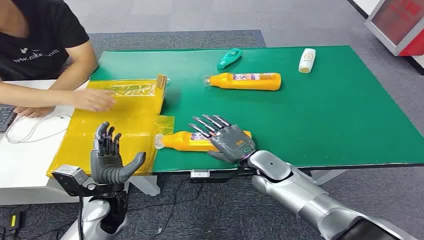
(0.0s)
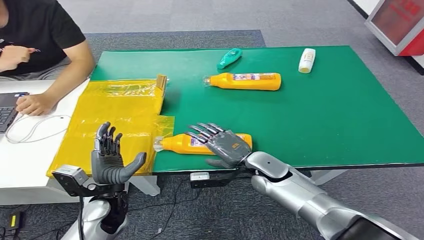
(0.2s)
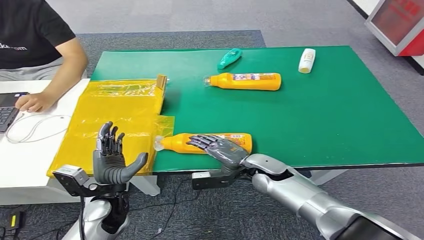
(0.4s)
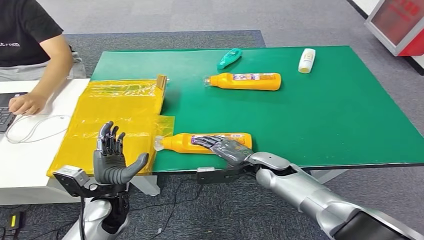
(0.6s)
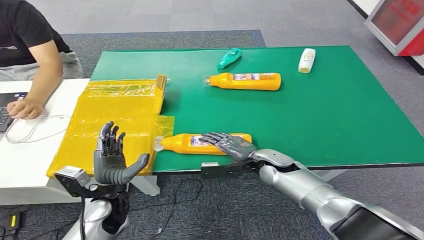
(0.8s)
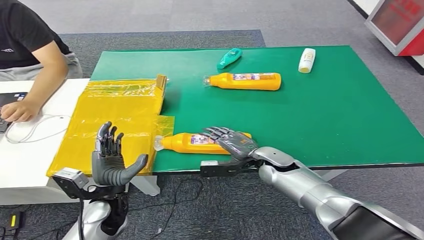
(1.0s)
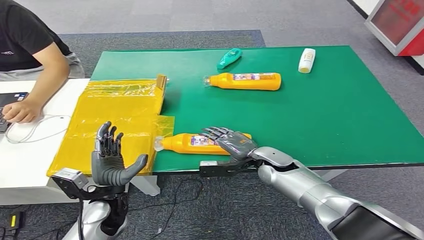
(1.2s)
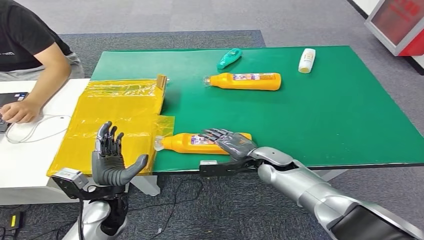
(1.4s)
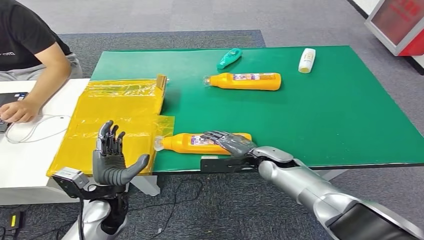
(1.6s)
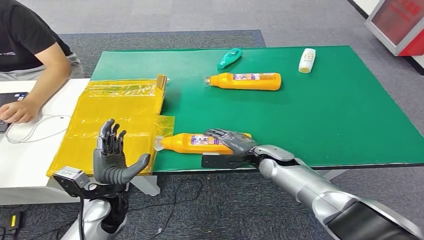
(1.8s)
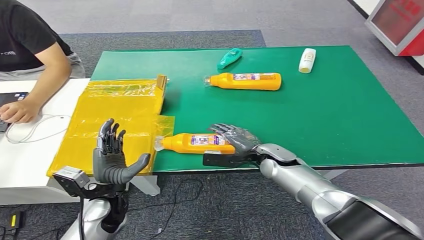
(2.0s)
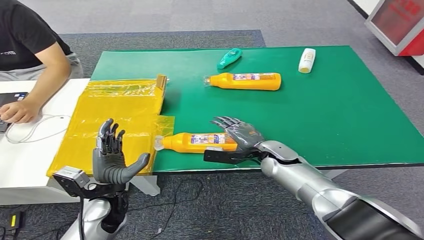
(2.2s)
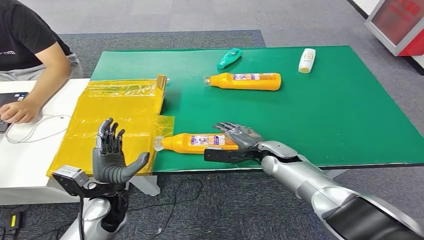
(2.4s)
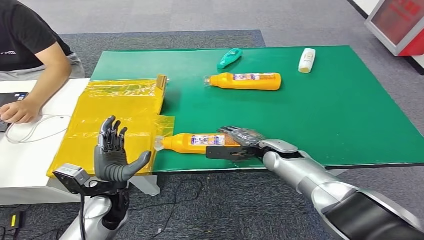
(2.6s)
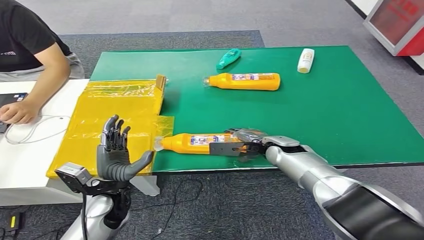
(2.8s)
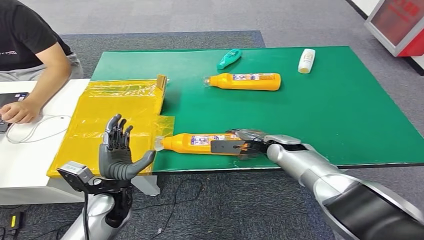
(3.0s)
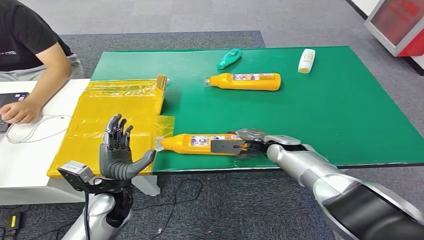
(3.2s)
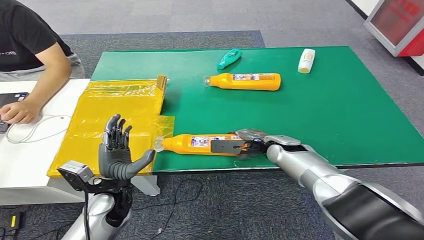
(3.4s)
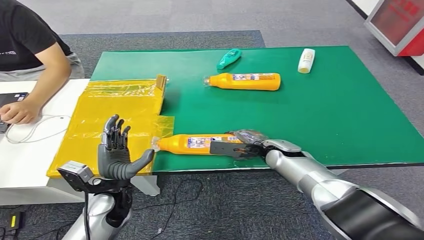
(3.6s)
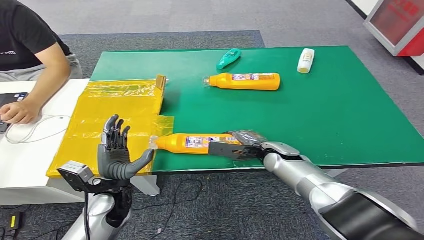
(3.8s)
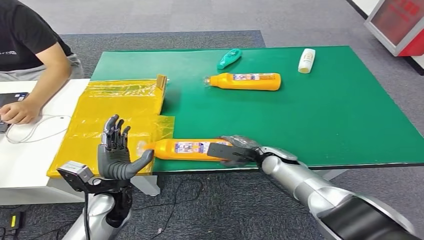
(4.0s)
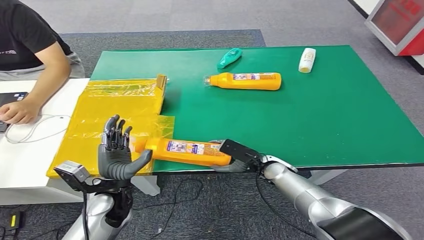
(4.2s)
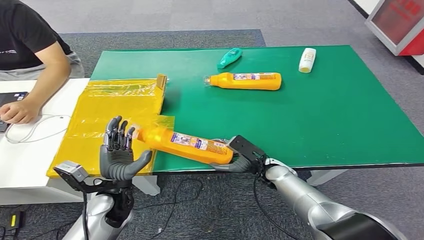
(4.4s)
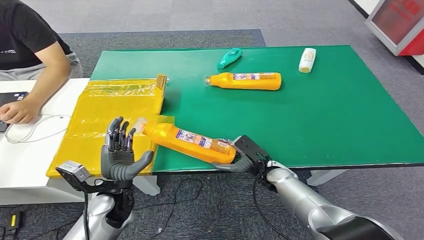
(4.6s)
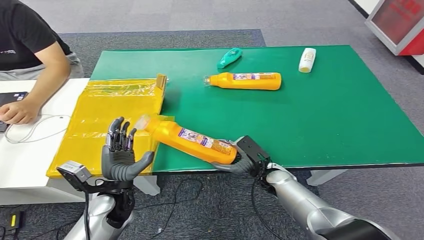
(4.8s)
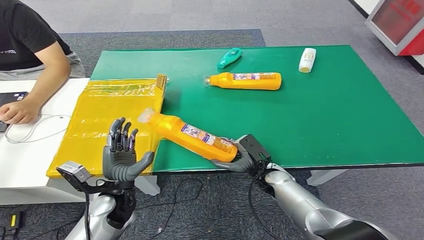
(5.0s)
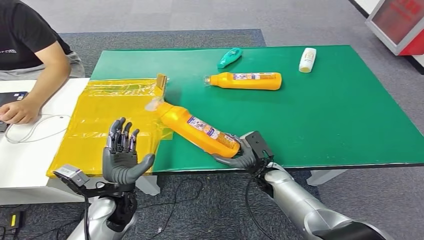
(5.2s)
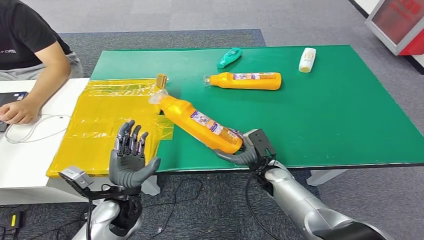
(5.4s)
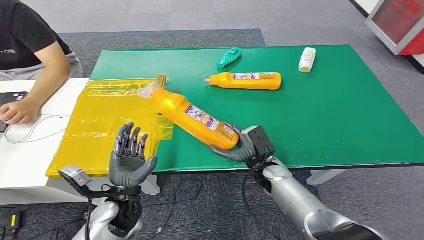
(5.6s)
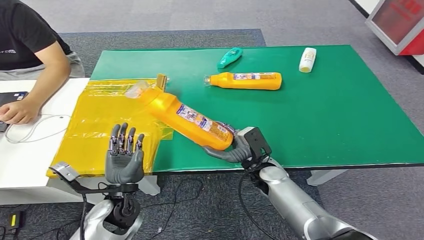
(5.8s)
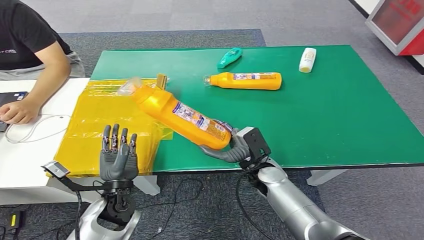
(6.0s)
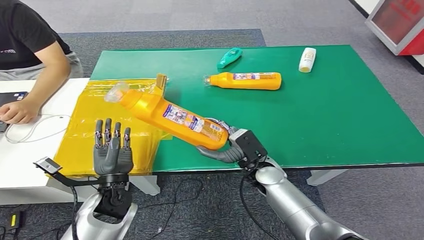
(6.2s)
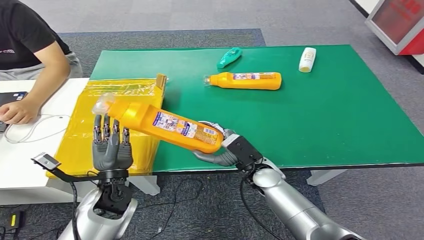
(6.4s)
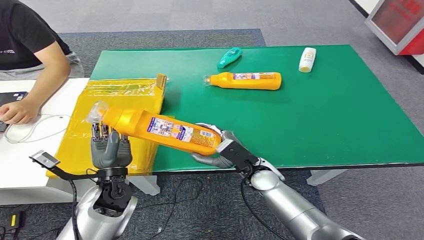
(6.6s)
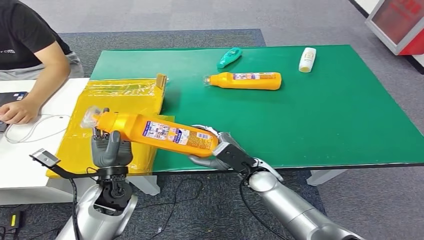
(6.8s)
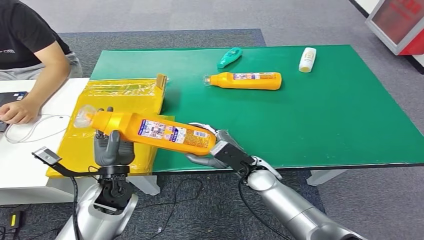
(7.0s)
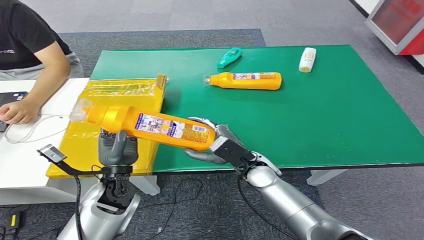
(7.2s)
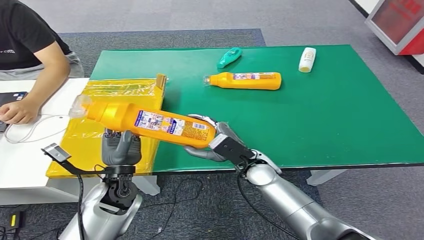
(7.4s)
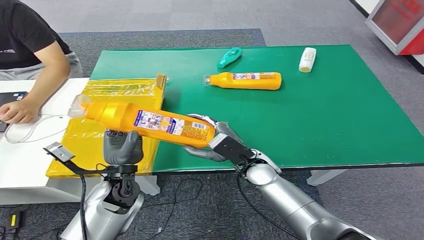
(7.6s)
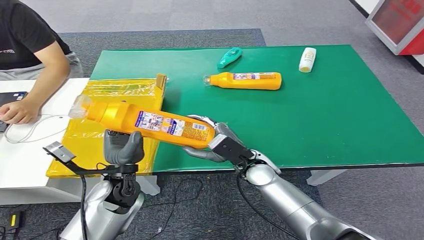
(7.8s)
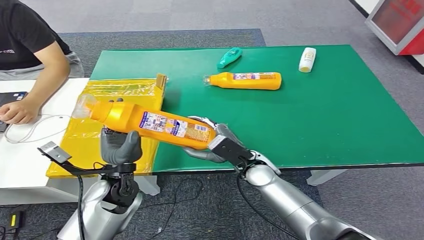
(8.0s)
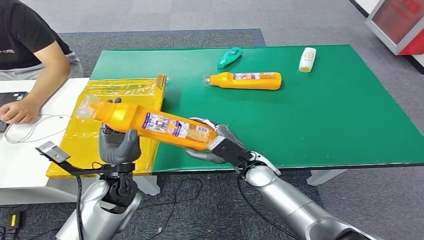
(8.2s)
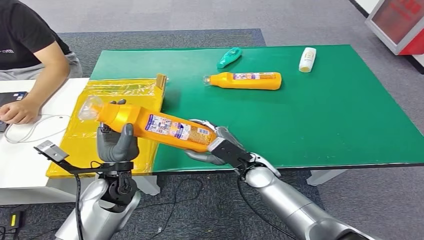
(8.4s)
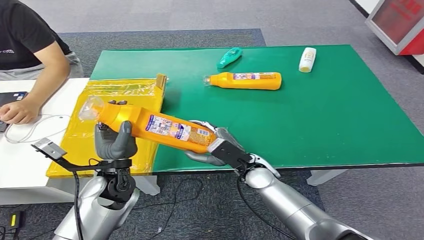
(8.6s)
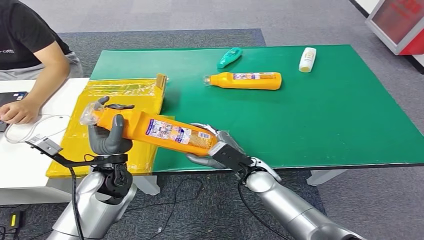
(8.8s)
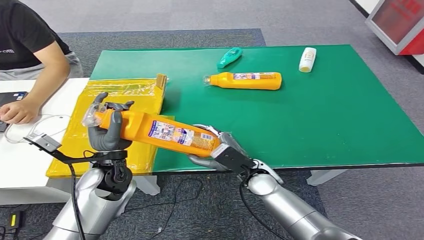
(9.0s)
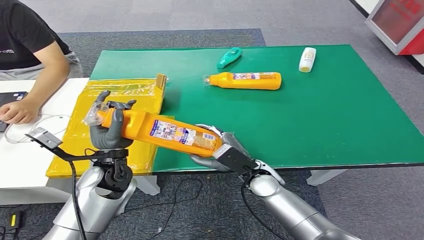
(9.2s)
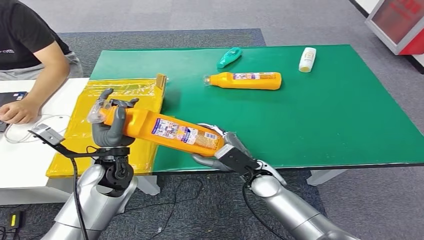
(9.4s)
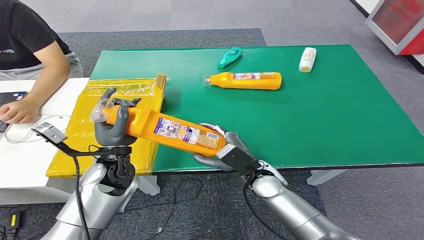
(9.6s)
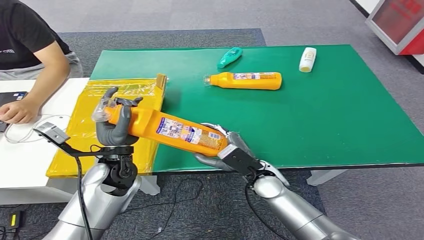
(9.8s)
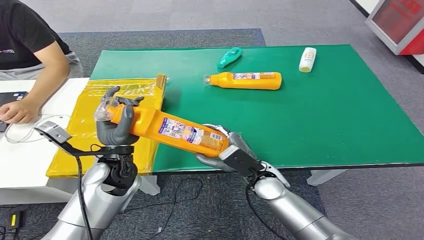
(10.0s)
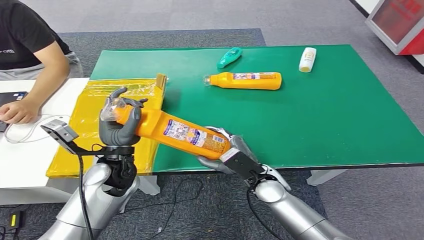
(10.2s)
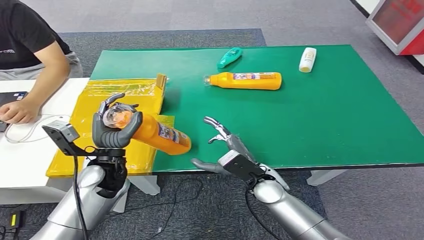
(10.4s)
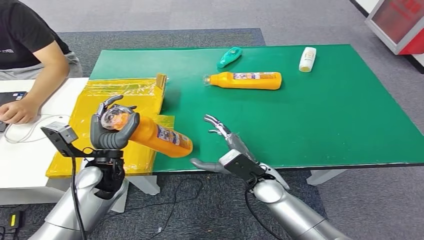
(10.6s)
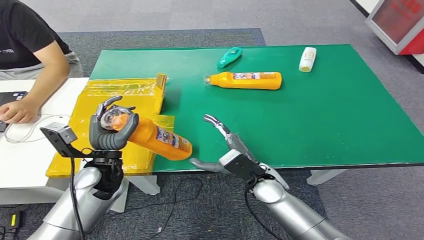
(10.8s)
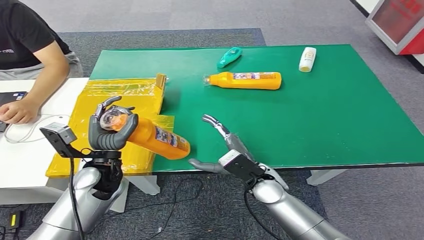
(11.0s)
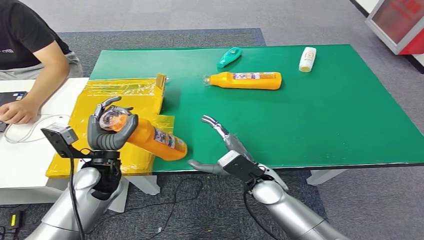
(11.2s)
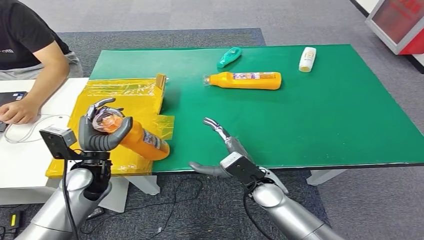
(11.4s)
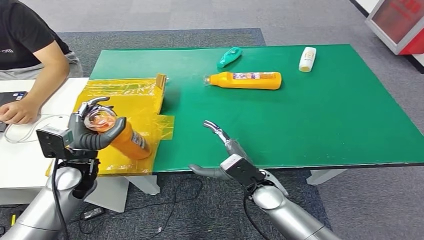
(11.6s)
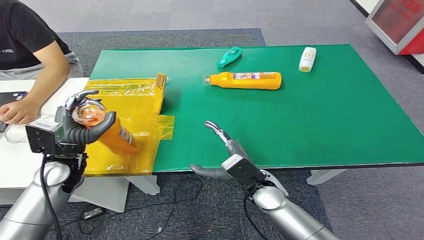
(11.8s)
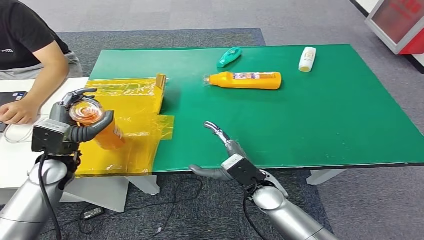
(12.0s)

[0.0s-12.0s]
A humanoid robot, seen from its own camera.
Step, 0.0s to 6.4s: Pick up the bottle from the table.
3.0s to 4.4s: The right hand is displaced downward and backward by roughly 10 cm.
4.4s to 6.0s: The right hand moves about 5 cm.
7.6s to 9.0s: There are only small adjustments of the hands.
9.0s to 10.4s: There are only small adjustments of the hands.
10.4s to 12.0s: The left hand is displaced to the left by about 10 cm.

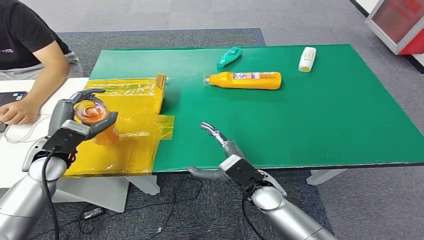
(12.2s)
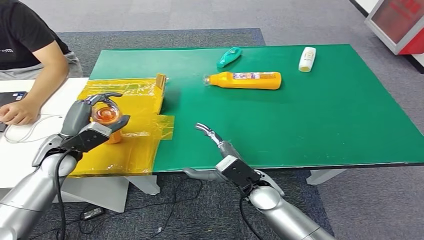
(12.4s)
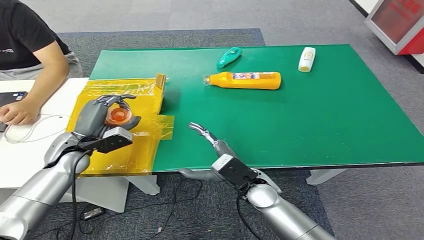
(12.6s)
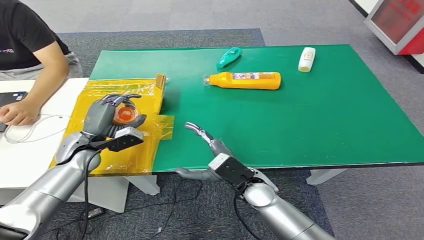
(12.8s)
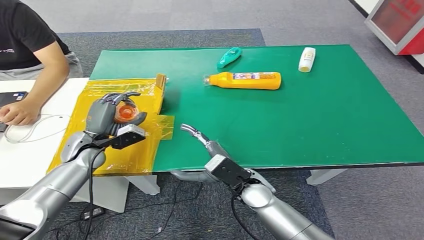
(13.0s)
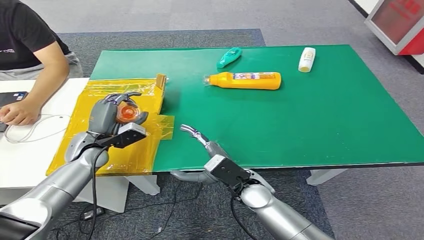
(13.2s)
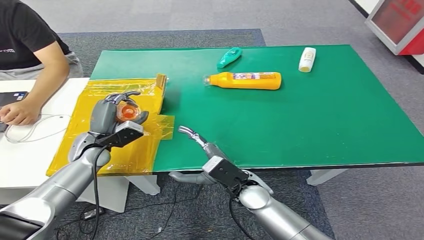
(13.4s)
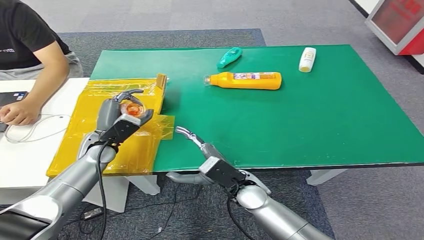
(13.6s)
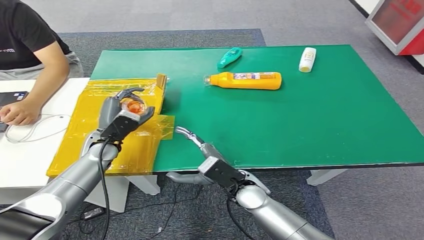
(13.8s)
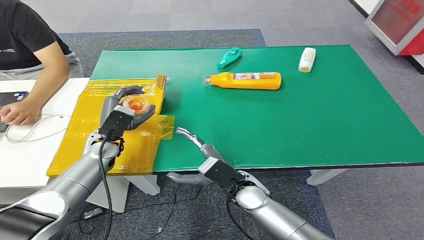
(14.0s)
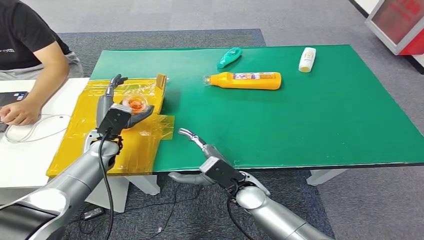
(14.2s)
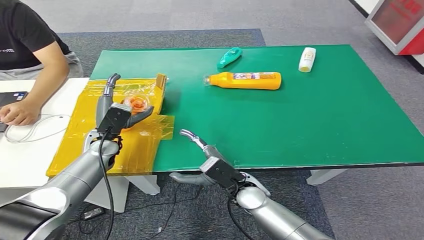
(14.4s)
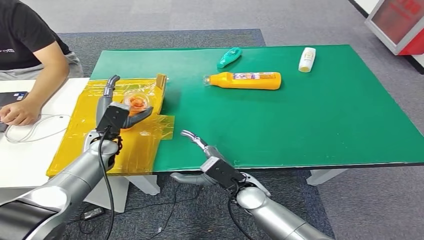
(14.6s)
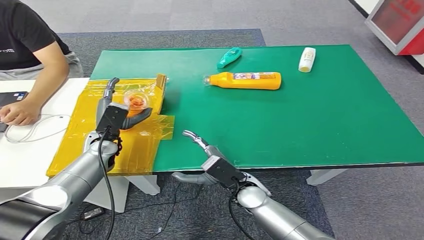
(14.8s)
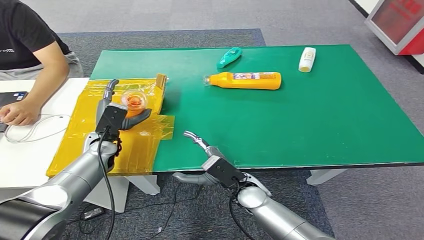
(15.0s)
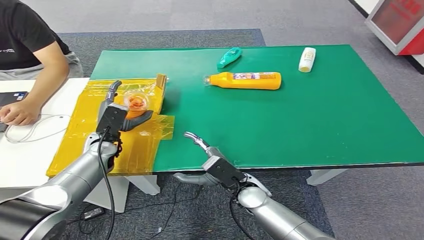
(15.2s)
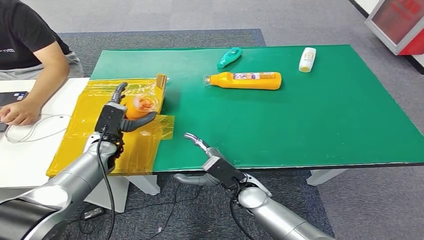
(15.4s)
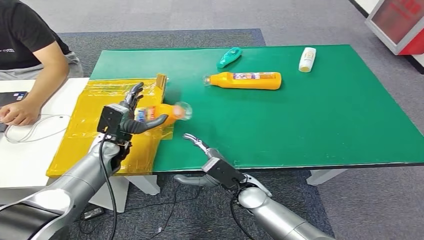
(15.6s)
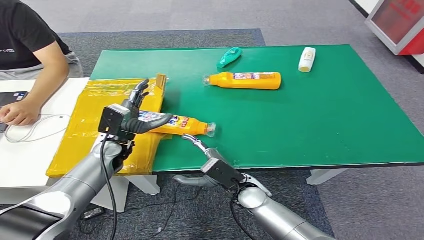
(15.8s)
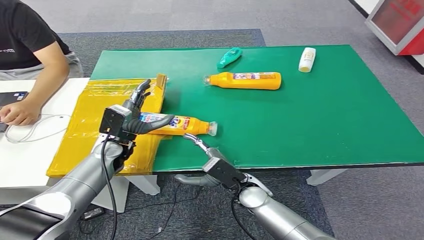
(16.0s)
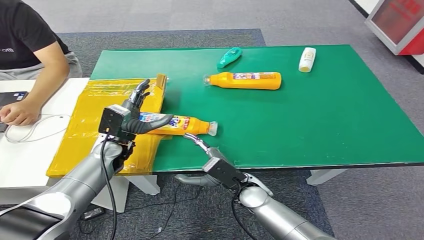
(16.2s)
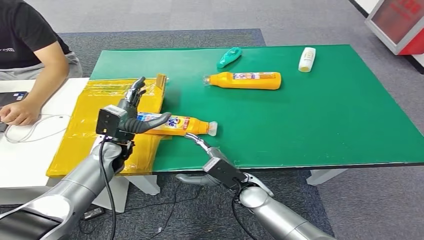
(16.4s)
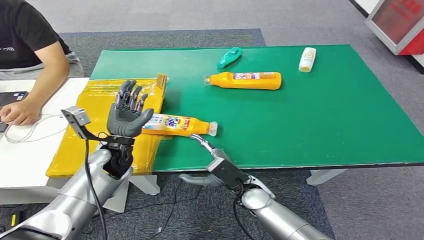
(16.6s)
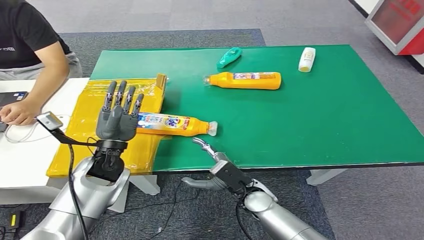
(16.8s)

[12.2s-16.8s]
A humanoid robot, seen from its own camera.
Step, 12.2s to 16.8s: Turn the bottle to the front side.
12.2s to 13.8s: The left hand shifts roughly 10 cm to the right, forward and downward.
13.8s to 15.2s: The hands stay close to where they were, moving slightly.
15.2s to 16.8s: The left hand heads backward, covering some 5 cm.
